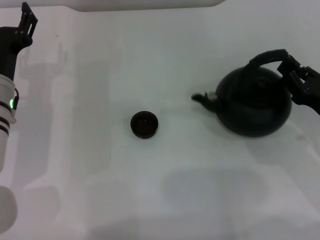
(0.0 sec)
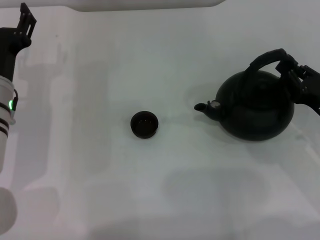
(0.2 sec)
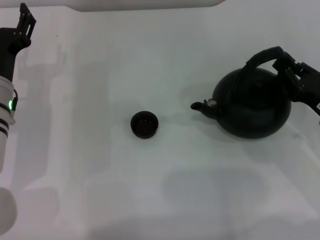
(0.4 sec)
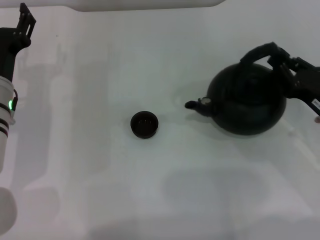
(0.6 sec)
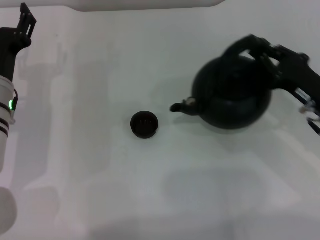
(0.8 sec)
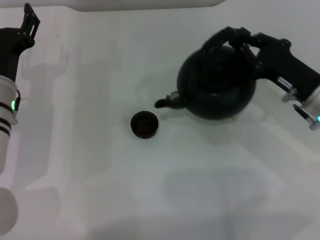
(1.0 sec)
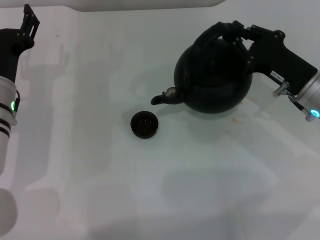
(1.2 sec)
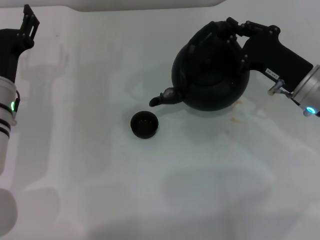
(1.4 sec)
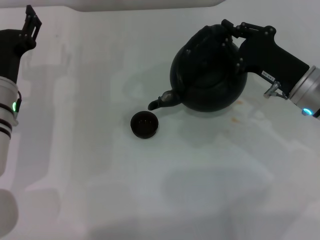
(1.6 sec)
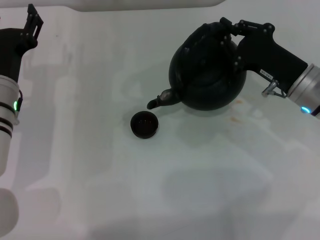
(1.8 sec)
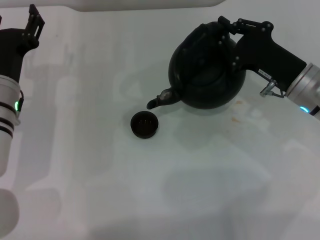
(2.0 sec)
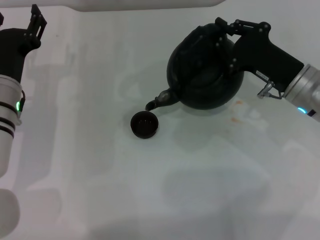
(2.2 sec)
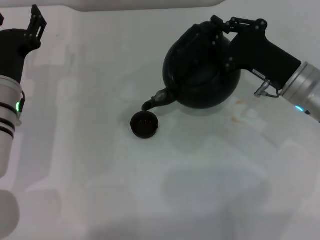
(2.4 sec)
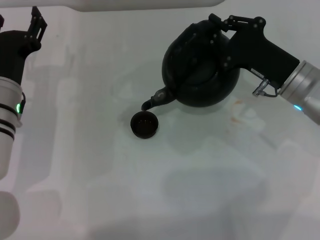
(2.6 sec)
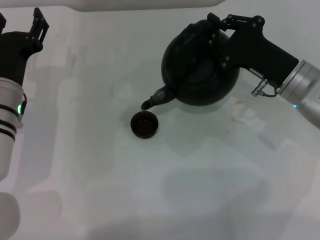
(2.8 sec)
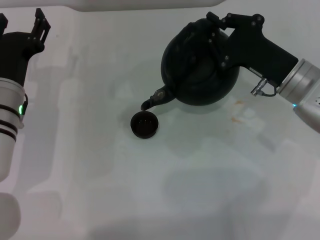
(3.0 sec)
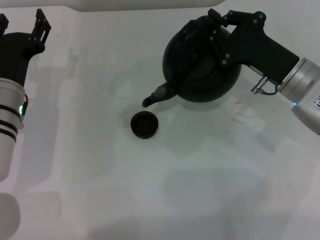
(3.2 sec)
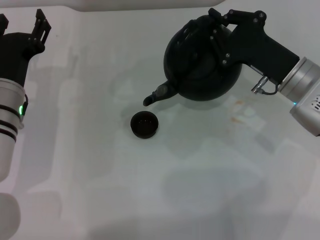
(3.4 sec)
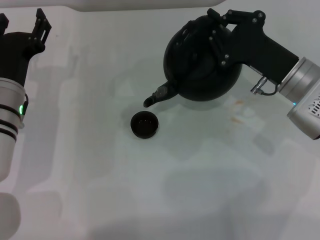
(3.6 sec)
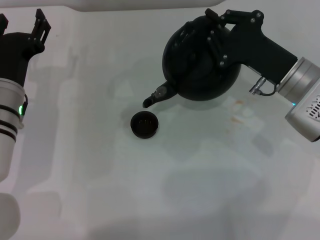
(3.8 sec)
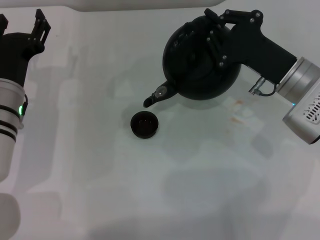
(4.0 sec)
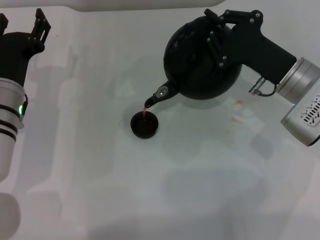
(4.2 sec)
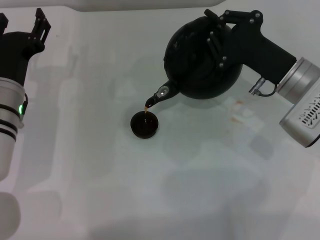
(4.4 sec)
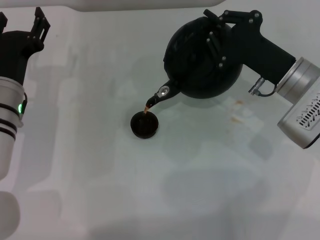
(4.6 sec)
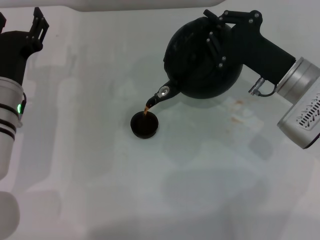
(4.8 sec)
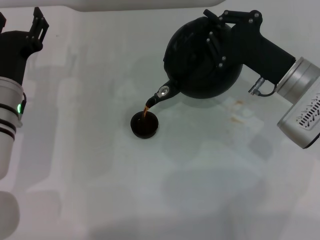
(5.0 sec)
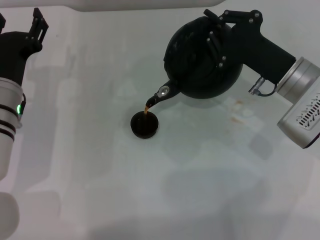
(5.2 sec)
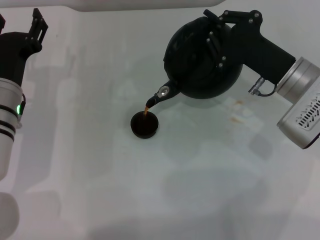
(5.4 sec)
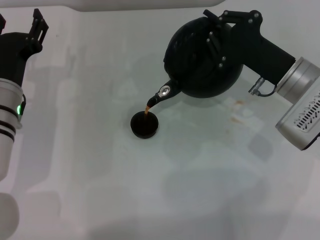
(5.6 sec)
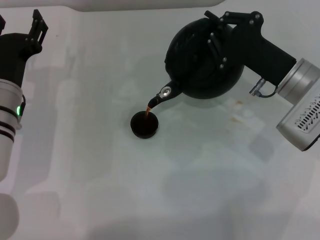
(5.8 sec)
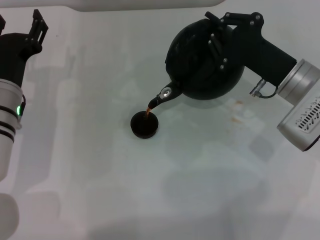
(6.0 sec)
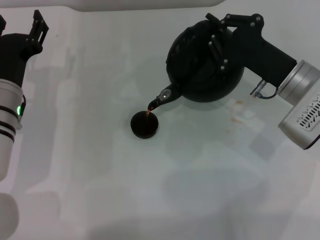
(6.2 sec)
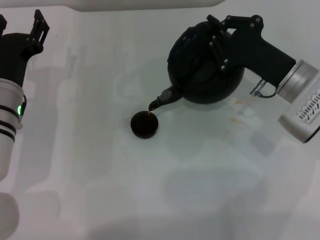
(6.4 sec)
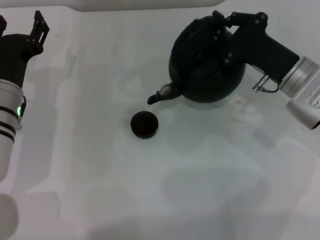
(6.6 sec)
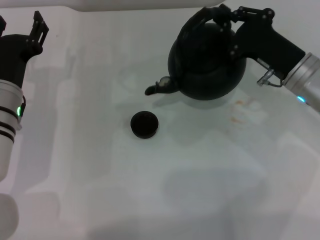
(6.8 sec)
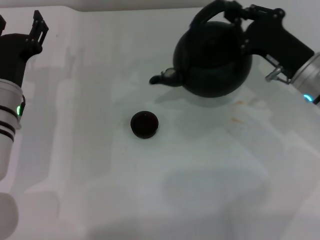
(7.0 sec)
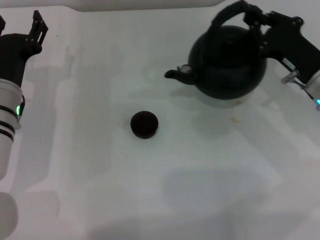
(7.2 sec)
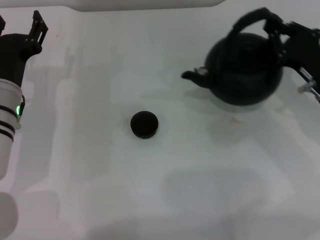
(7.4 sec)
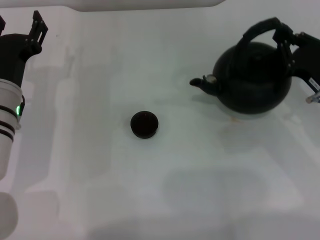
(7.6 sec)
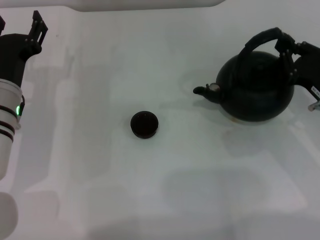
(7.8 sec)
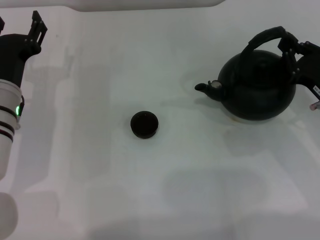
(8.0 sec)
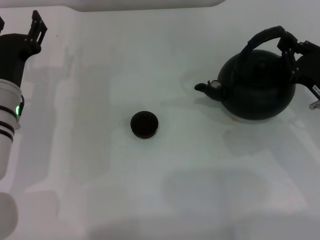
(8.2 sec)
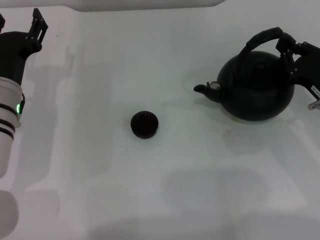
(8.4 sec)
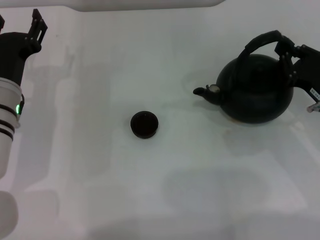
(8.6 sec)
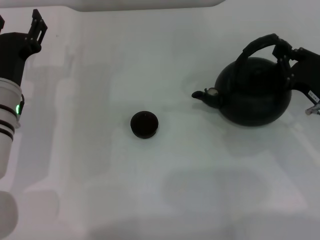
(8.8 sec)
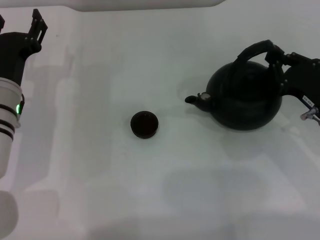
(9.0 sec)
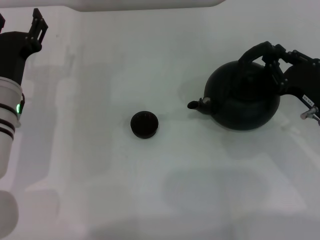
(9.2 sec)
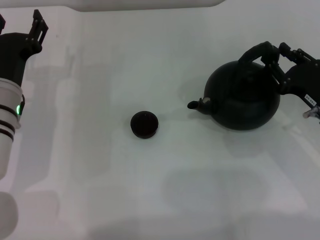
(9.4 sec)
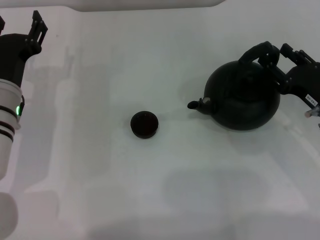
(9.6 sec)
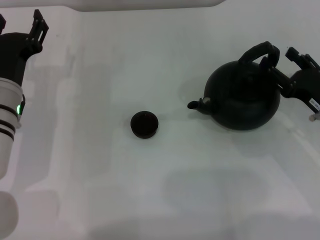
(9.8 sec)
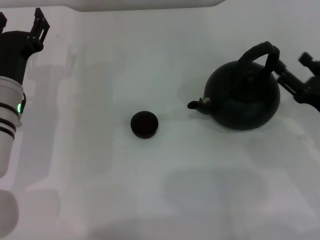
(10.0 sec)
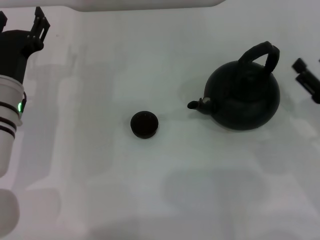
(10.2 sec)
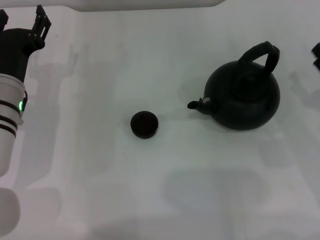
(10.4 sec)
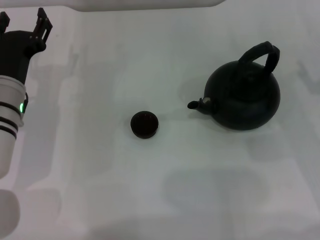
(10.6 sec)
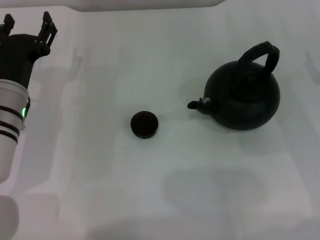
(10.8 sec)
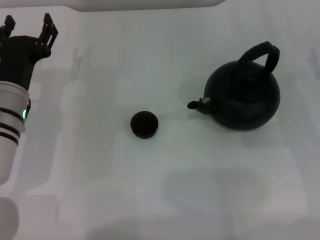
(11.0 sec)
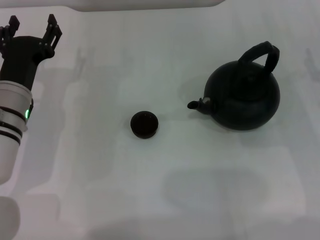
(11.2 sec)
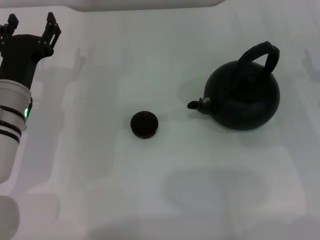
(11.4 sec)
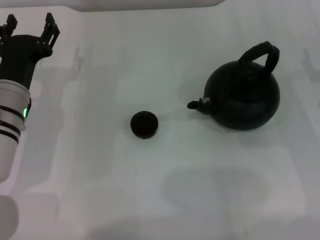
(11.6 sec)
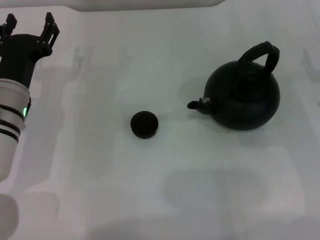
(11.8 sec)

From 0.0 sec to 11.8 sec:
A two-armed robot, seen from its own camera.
Task of the whole recording: Grasp the handle of the teapot with one hand and pour tea into the teacup.
Step, from 0.8 sec to 6.4 sec: Pour tea into the teacup with the right gripper.
Step, from 6.8 sec to 9.8 sec: Put down the teapot with the right gripper.
From 0.0 sec to 1.4 sec: The right gripper travels to the left and forward by approximately 10 cm.
From 3.0 sec to 4.4 sec: There are only small adjustments of the grippers.
From 4.4 sec to 6.0 sec: The two grippers keep their place.
From 6.0 sec to 7.4 sec: The right gripper shifts about 5 cm to the right.
From 7.4 sec to 8.8 sec: There are only small adjustments of the grippers.
From 8.8 sec to 10.4 sec: The right gripper shifts by about 5 cm, and opens up.
